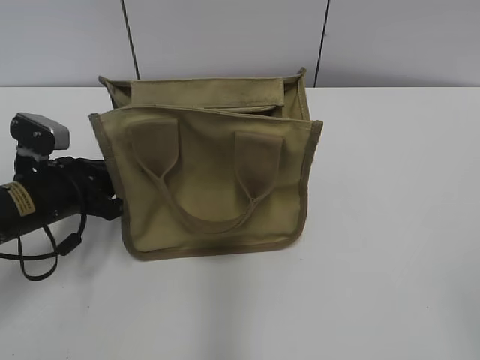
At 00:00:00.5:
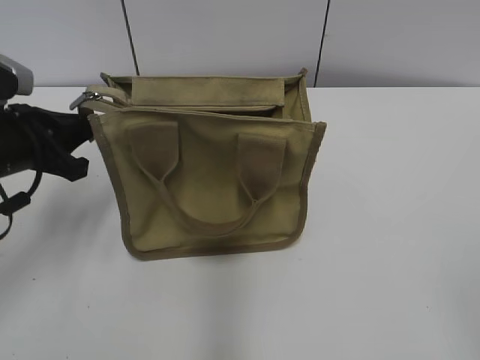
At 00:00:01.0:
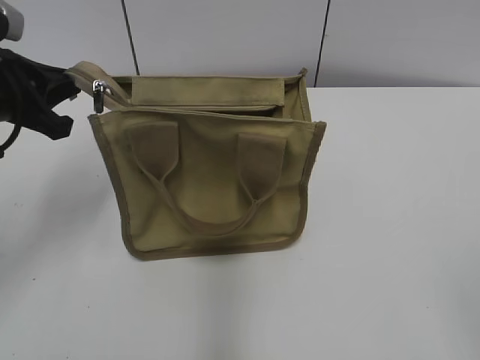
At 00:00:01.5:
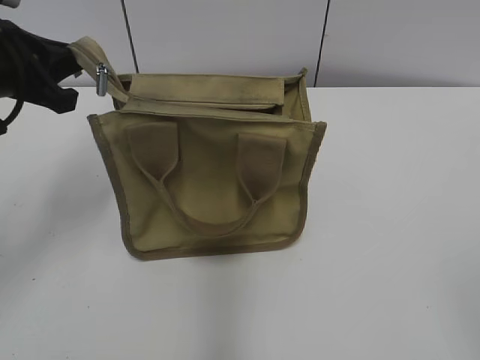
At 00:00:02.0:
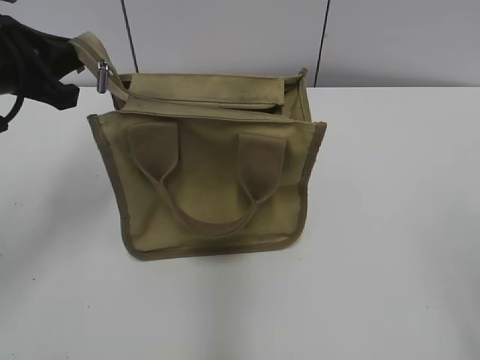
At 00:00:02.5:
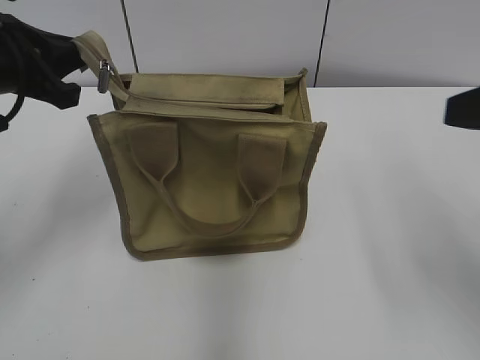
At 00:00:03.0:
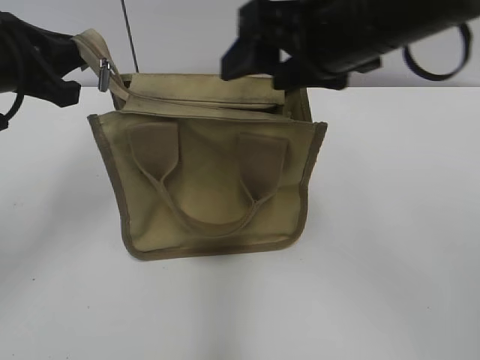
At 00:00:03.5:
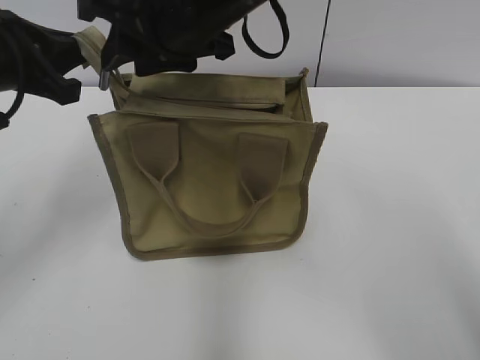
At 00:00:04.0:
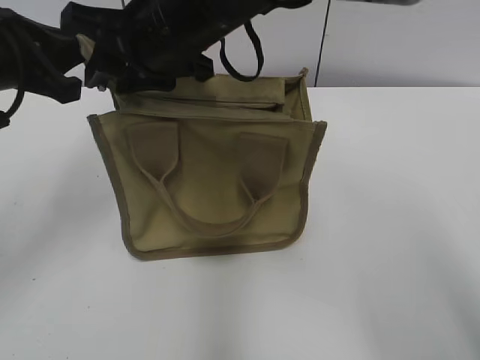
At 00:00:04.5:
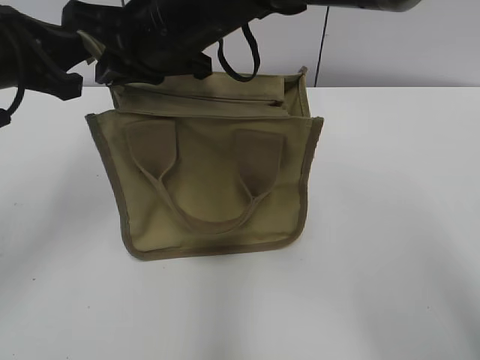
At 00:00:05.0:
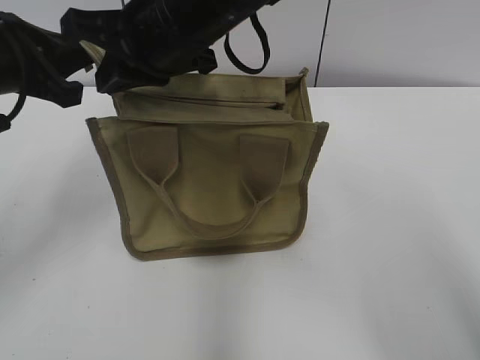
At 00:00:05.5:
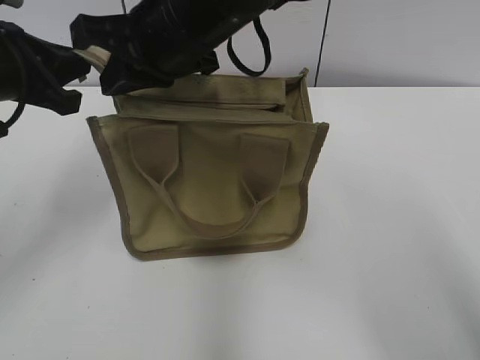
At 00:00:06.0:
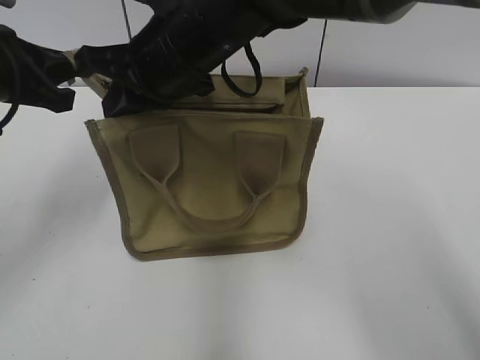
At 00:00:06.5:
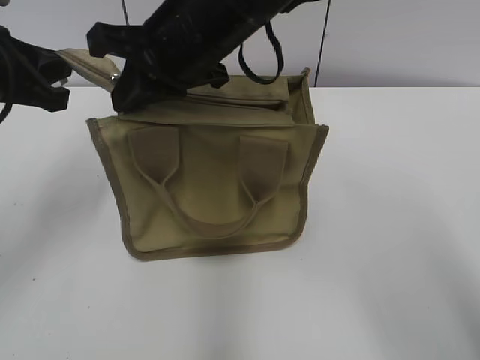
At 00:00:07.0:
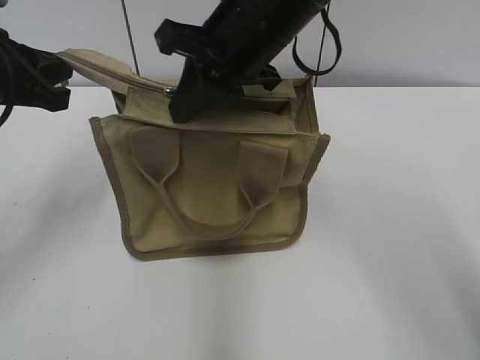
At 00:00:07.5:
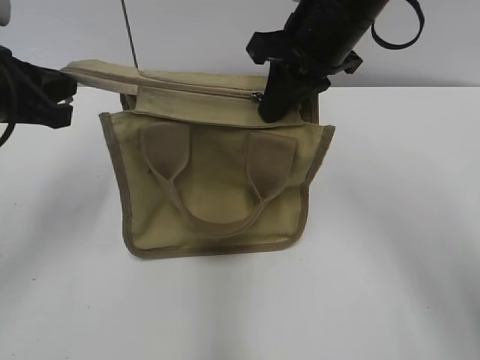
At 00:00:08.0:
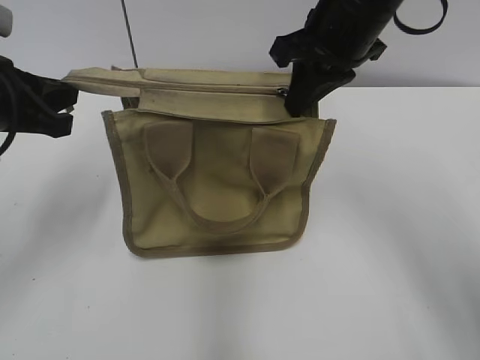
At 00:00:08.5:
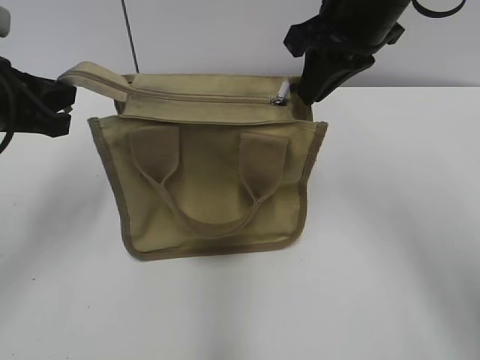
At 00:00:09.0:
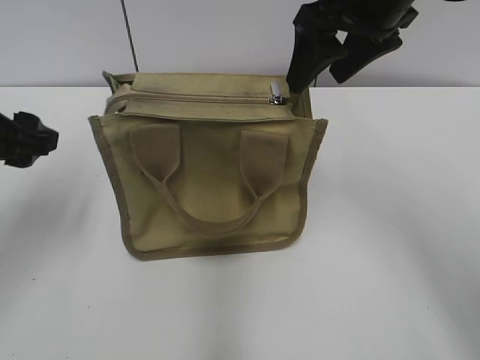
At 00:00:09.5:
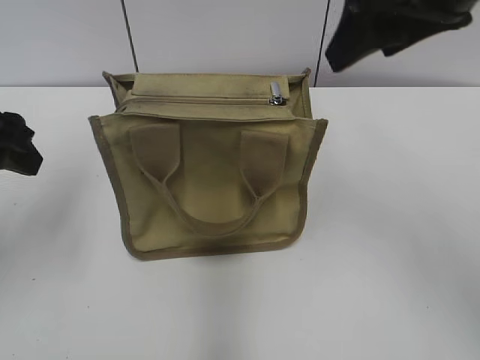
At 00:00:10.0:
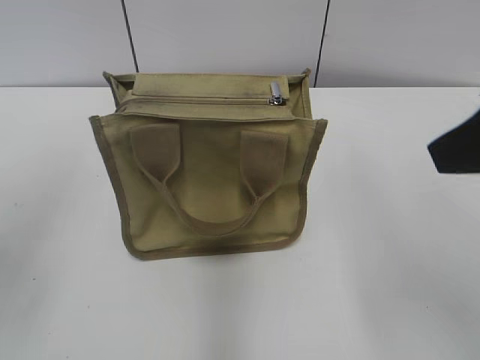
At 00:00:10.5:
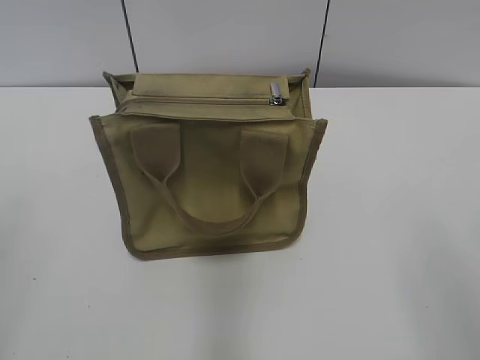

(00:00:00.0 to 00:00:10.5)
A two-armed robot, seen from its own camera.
Step, 00:00:00.0 - 00:00:08.5: Zip up the bag with your right hand.
00:00:00.0 - 00:00:02.0: The left gripper moves upward, about 15 cm.
00:00:02.0 - 00:00:04.0: The right gripper goes some 40 cm to the left and forward, and closes its fingers.
00:00:04.0 - 00:00:06.5: The right gripper closes.
00:00:06.5 - 00:00:08.5: The right gripper travels to the right by about 15 cm.
00:00:08.5 - 00:00:10.5: The right gripper moves backward and to the right, about 30 cm, and opens up. The left gripper heads backward, covering approximately 20 cm, and opens its fingers.

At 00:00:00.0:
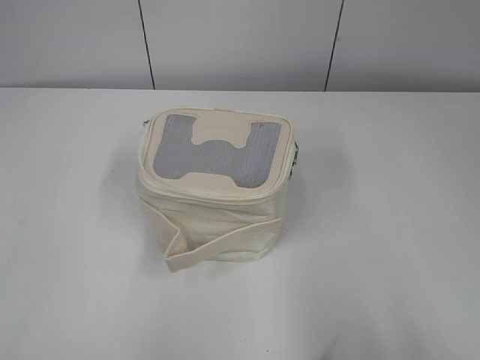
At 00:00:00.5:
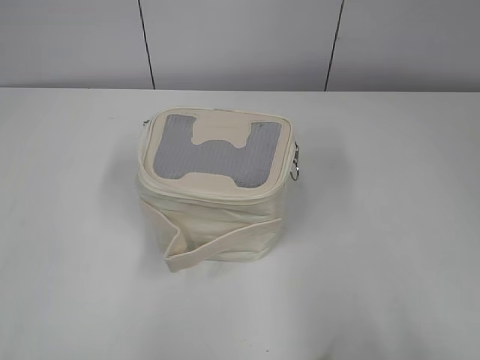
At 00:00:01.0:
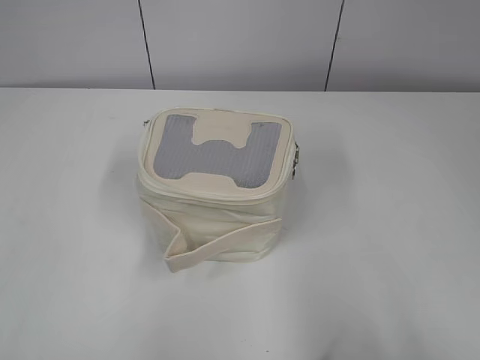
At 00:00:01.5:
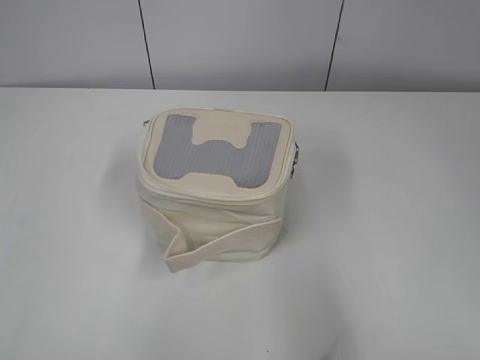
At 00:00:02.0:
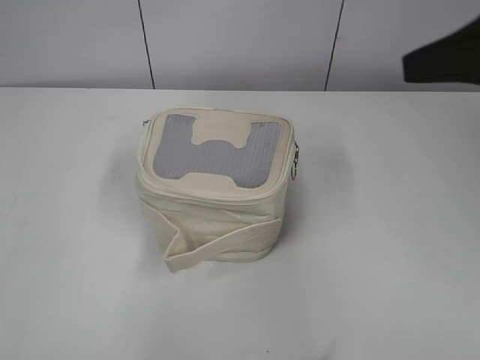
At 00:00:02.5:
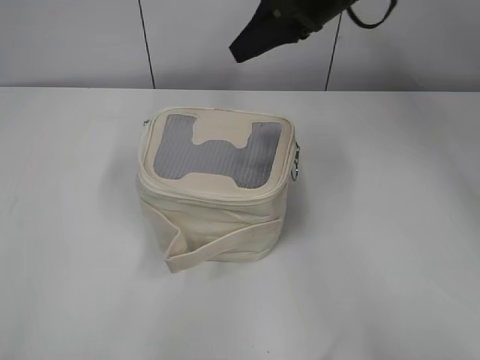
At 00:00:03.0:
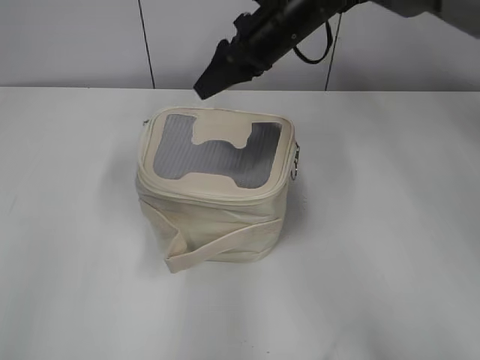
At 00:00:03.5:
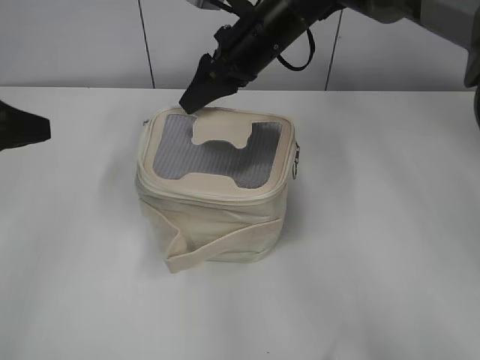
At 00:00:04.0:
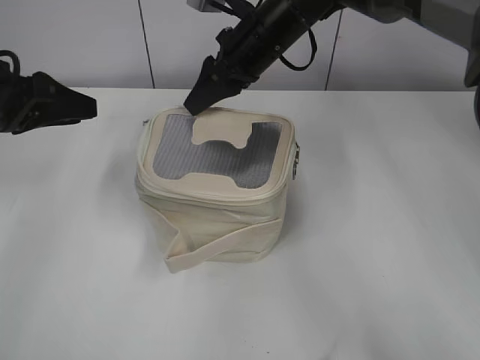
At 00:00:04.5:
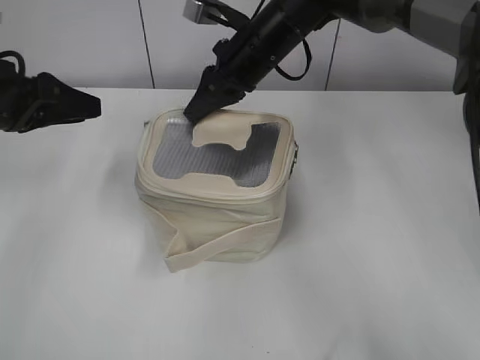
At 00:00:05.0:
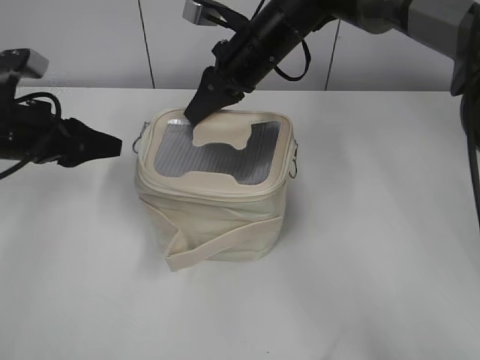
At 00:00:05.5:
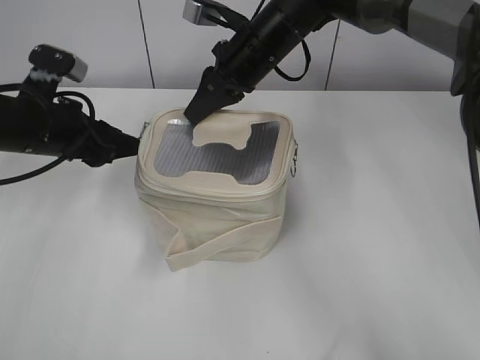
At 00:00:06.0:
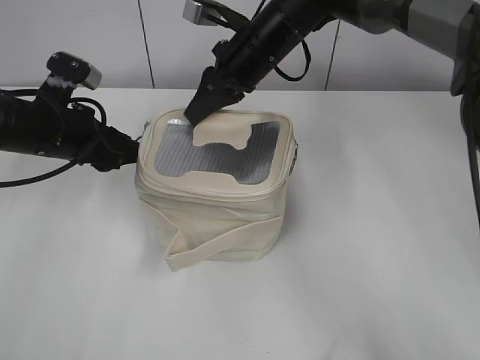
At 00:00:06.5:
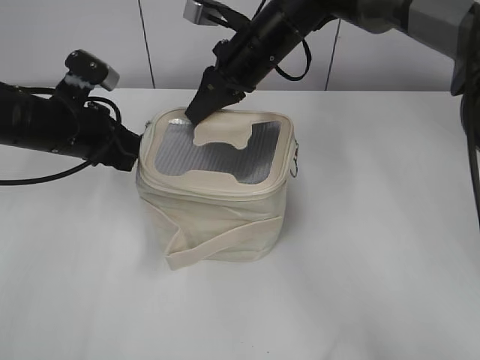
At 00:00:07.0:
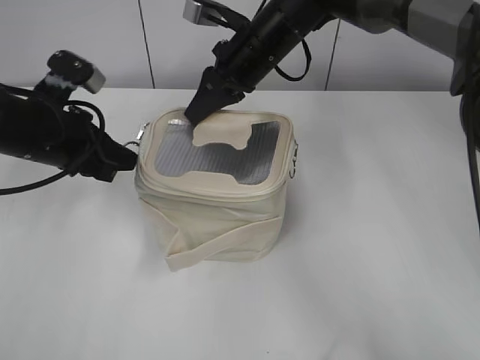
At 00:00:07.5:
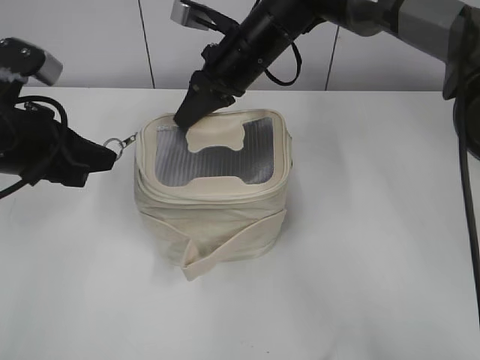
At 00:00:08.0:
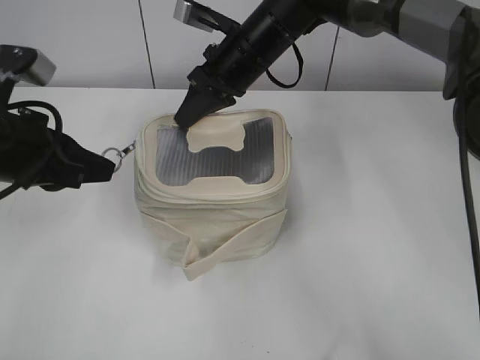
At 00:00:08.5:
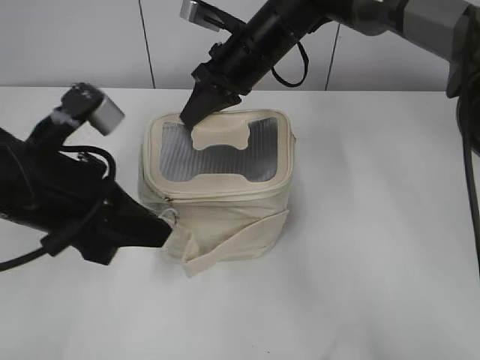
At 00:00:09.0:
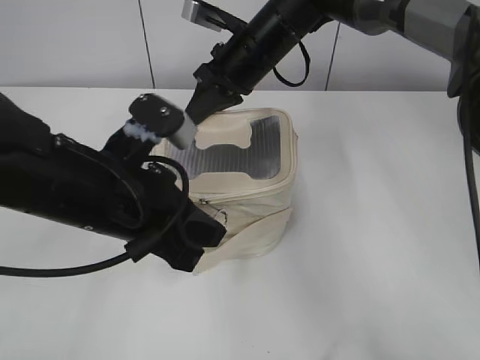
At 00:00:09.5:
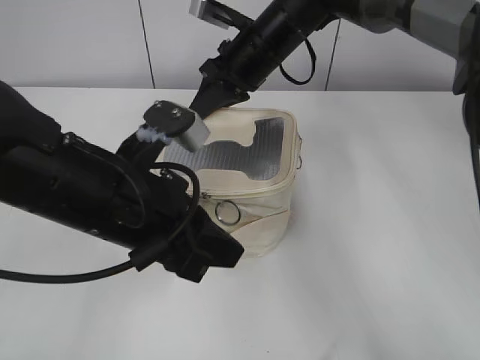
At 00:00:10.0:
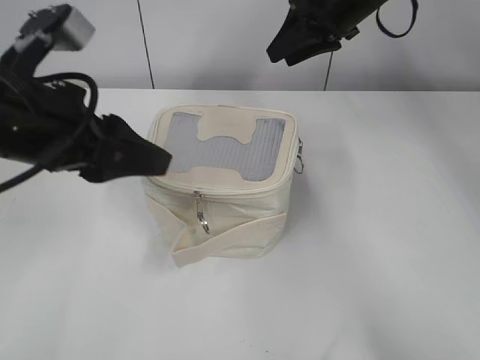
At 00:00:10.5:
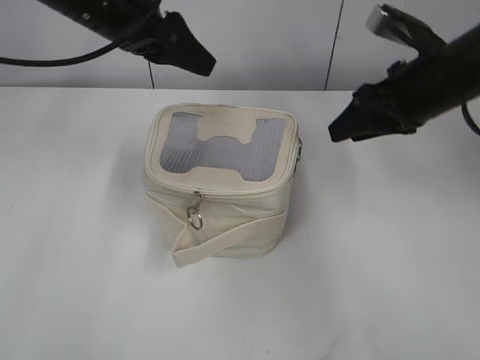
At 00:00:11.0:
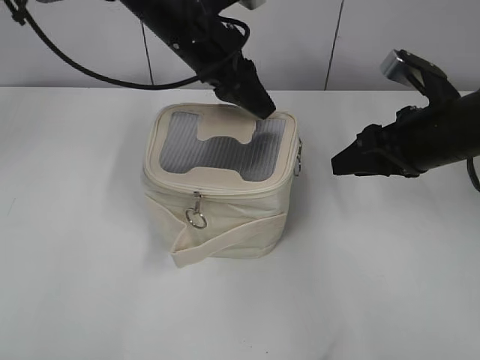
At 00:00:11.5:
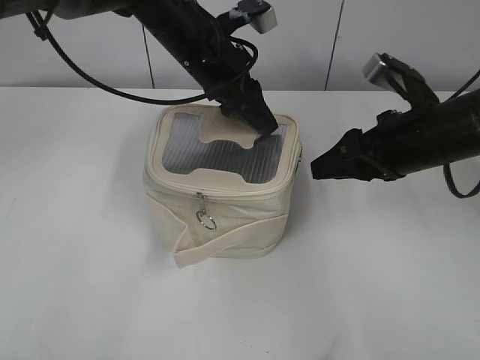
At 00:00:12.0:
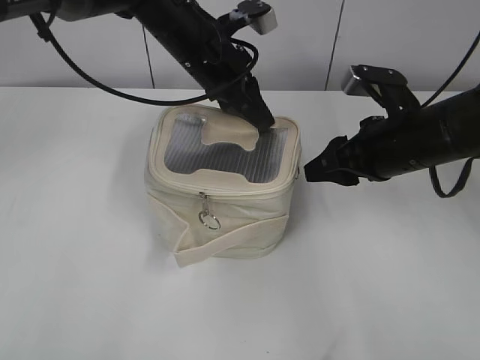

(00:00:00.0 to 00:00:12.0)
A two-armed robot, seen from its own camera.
Step, 00:00:00.0 - 00:00:09.0: Zip up the bag with your left hand.
00:00:02.0 - 00:00:04.0: The right gripper travels forward, to the left and downward by some 30 cm; the left gripper moves forward, about 30 cm.
00:00:04.0 - 00:00:06.0: The right gripper closes its fingers, while the left gripper moves downward, about 5 cm.
00:00:06.0 - 00:00:08.0: The left gripper goes some 10 cm backward and upward, and closes its fingers.
00:00:08.0 - 00:00:10.0: The left gripper shifts roughly 5 cm to the right, and opens up, while the right gripper travels to the right and upward by roughly 15 cm, and opens.
00:00:10.0 - 00:00:12.0: The right gripper heads backward and downward, covering roughly 20 cm, while the left gripper goes about 25 cm forward and to the right, and closes its fingers.

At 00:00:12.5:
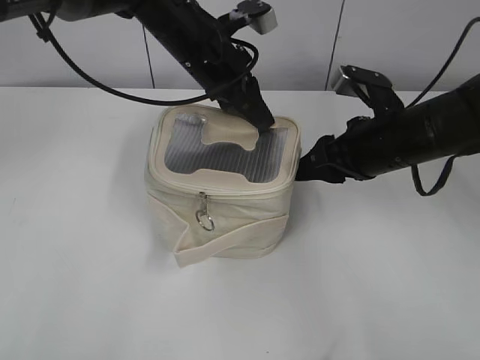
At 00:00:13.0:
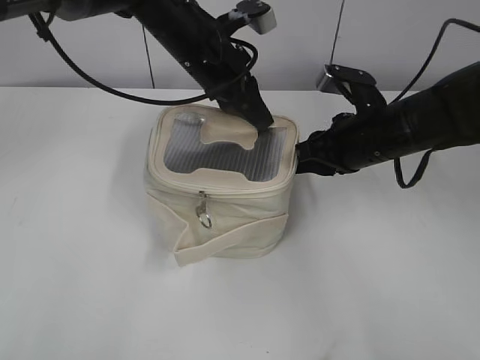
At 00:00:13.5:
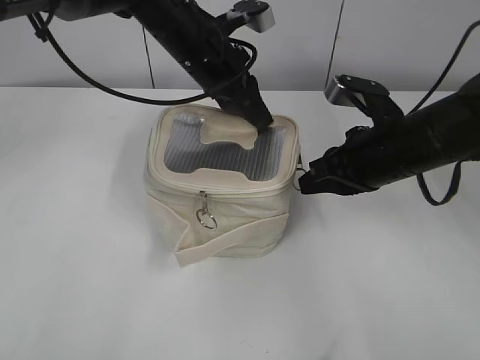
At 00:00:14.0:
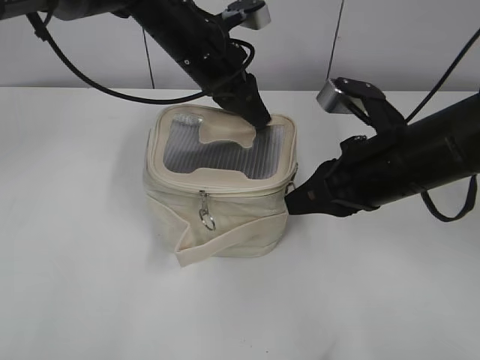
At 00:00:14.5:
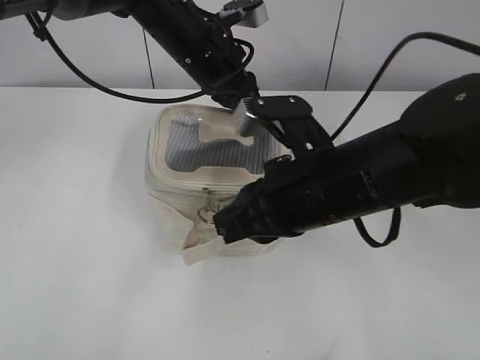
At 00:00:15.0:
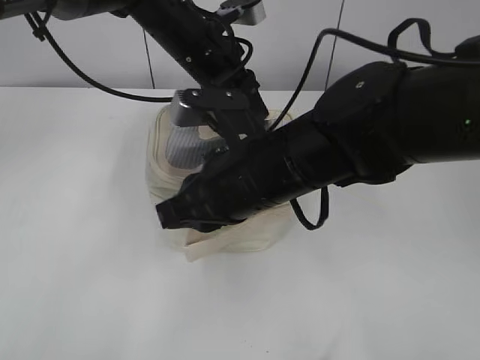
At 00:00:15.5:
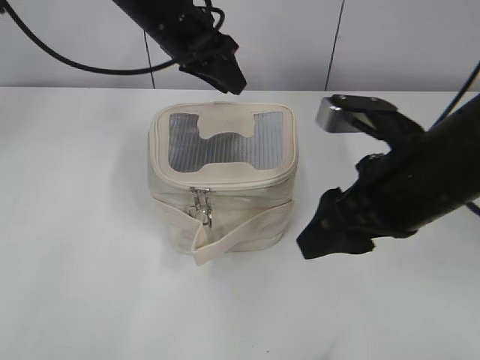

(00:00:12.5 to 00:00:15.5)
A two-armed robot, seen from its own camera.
Step, 00:00:12.5 - 00:00:15.0: Zip up the bag with your right hand.
00:00:12.5 - 00:00:14.0: The right gripper is displaced backward by about 5 cm, and closes its fingers.
00:00:14.0 - 00:00:15.5: The left gripper opens its fingers, while the right gripper moves approximately 15 cm to the left and comes back, and opens up.
